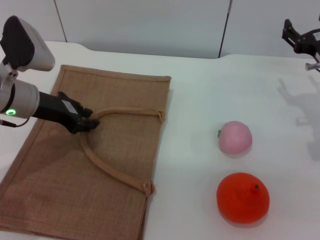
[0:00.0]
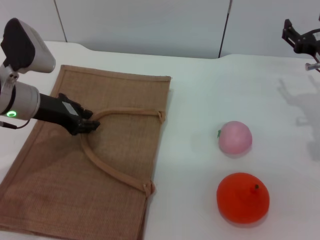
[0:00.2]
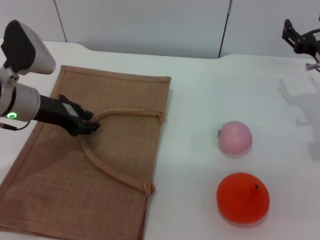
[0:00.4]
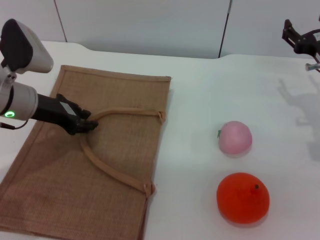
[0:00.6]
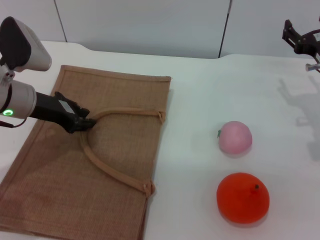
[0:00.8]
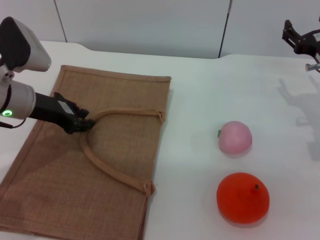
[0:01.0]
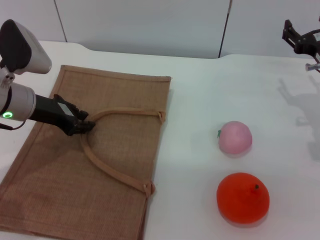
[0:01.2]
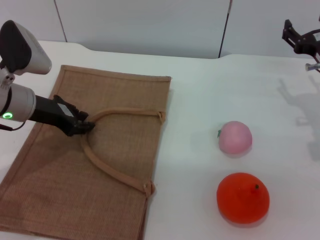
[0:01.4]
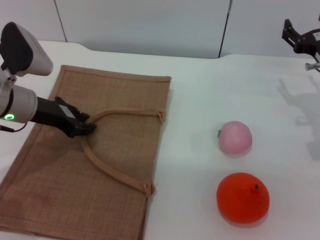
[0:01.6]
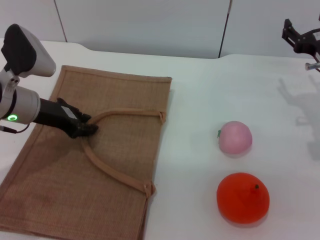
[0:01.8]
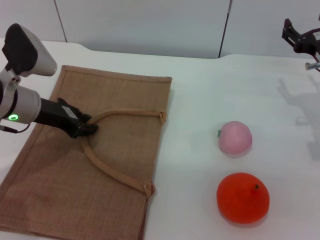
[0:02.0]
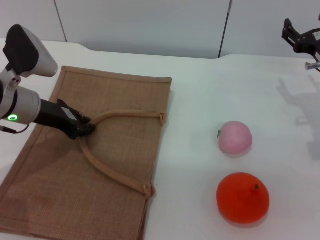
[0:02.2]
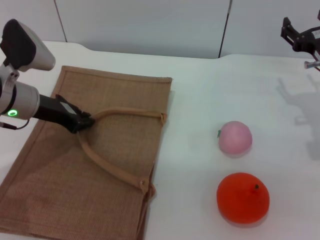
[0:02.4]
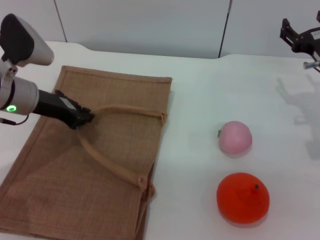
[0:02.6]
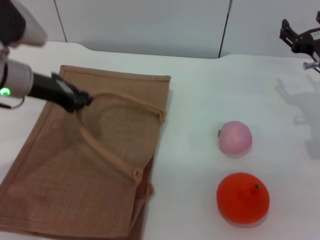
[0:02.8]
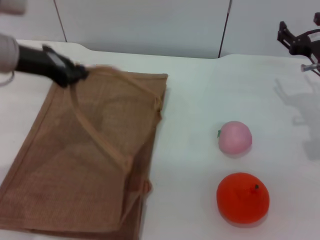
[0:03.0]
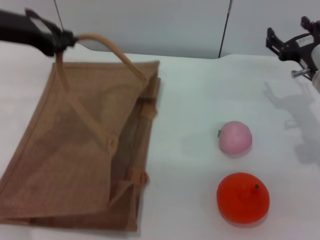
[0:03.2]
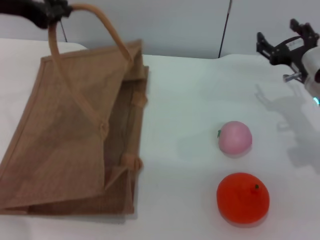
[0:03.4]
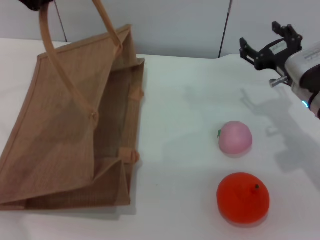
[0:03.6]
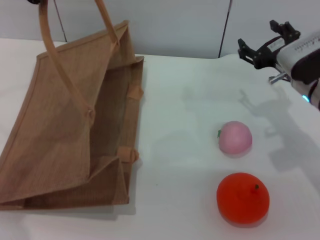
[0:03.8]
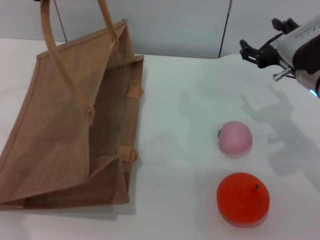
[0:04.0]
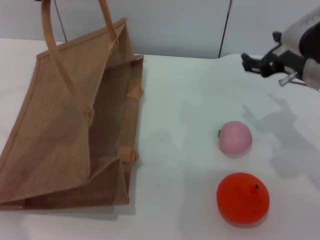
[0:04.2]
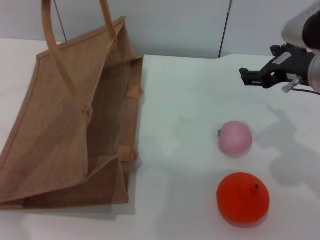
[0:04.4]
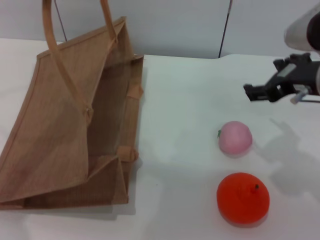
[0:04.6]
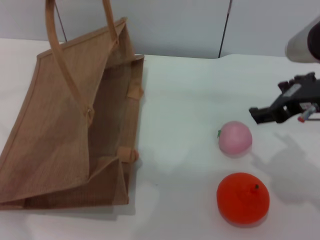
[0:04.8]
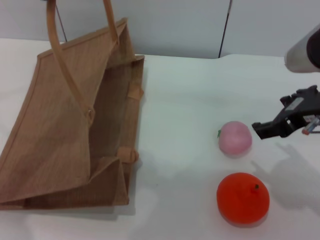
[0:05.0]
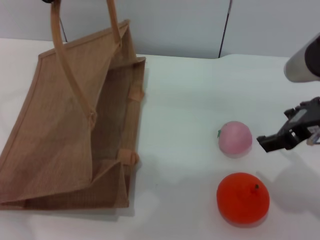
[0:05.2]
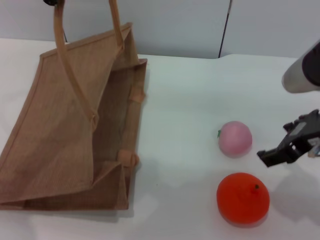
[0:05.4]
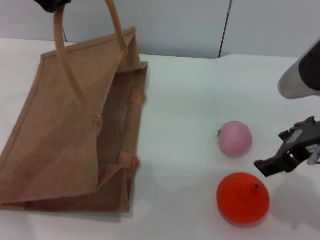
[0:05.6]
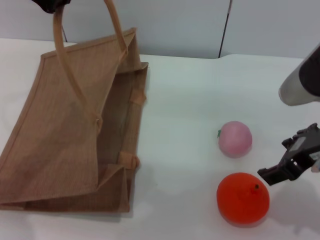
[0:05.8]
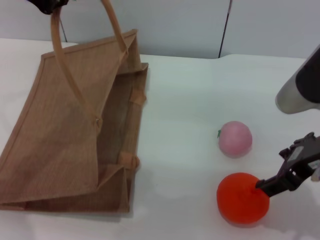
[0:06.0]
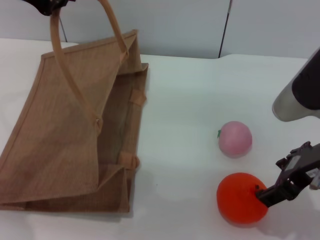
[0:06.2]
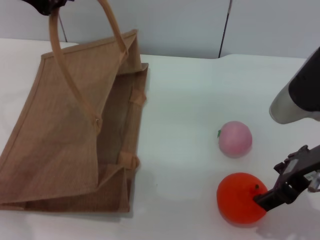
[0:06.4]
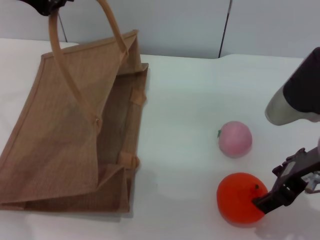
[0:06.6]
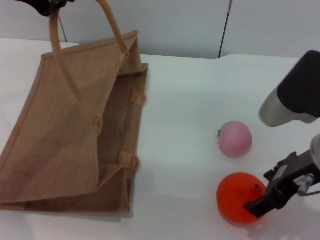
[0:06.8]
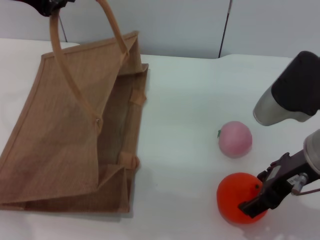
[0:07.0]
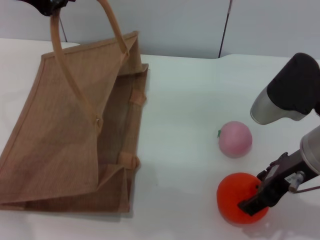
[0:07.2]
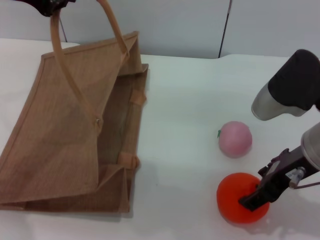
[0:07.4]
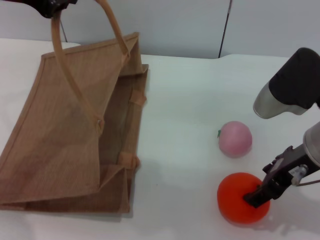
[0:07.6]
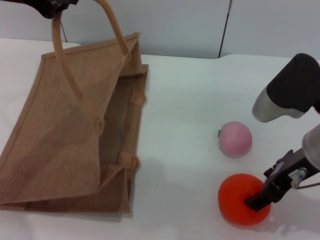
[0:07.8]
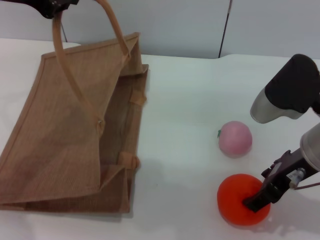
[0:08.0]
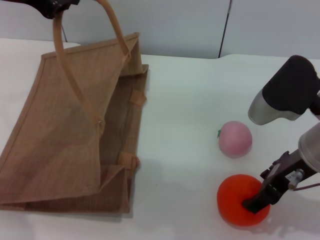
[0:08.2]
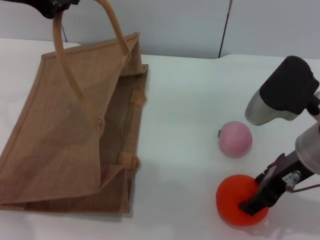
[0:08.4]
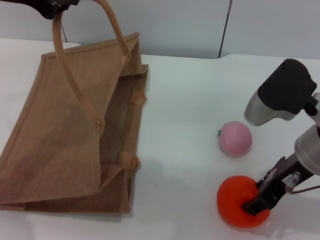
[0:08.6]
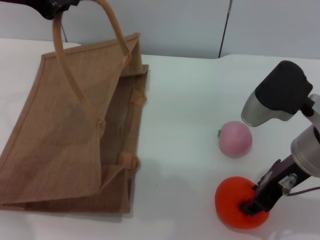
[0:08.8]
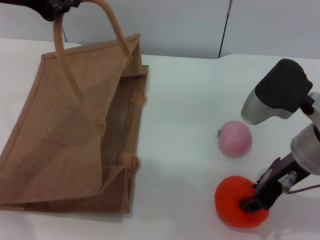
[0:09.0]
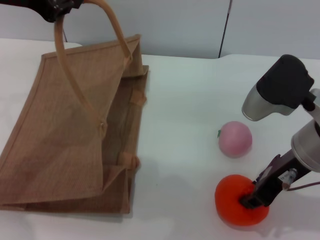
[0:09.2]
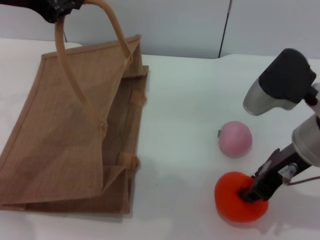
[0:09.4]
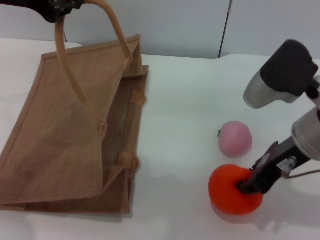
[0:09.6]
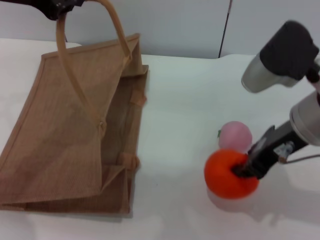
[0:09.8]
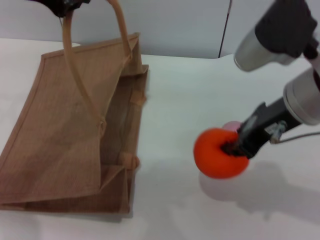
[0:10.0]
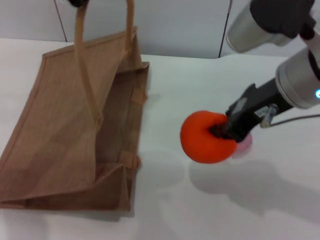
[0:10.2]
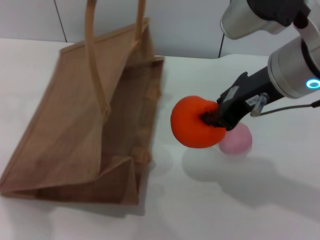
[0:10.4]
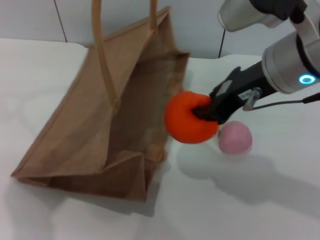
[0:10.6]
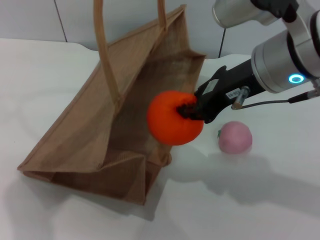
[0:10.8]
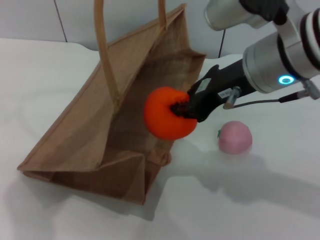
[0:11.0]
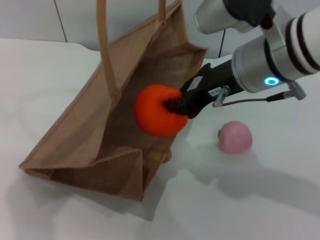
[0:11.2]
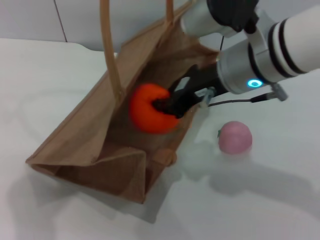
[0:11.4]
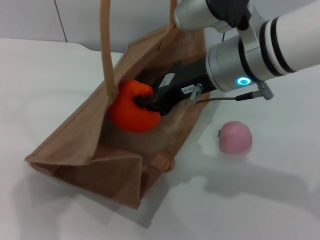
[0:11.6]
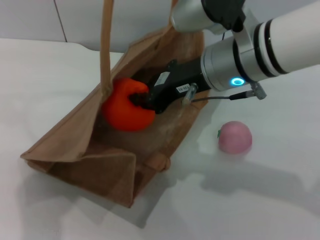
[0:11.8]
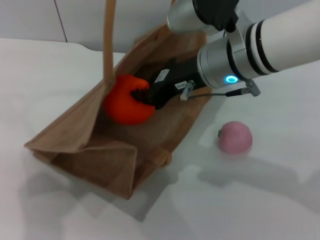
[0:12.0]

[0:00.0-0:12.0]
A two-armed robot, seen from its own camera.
Task of the whole recording: pick up the orange and peach from the table and place it in the brown handbag.
Step, 0:00.0 to 0:03.6: Lift the woven bag with the left gripper to open it.
Step, 0:03.8 to 0:09.8: Pick up the orange with the right gripper.
0:00.0 to 0:01.6: Neither gripper changes place.
0:01.6 to 0:03.0: The left gripper goes approximately 10 cm upward.
0:03.0 to 0:04.4: The right gripper goes approximately 15 cm upward, to the left and backward; the left gripper goes approximately 15 cm upward.
0:04.4 to 0:06.0: The right gripper shifts approximately 5 cm backward.
0:06.0 to 0:07.6: The grippers stay close to where they were, moving slightly.
0:07.6 to 0:09.0: The right gripper closes its fingers.
0:09.0 to 0:10.4: The left gripper shifts by some 5 cm, while the right gripper moves upward, some 10 cm, and closes up.
0:10.4 to 0:12.0: The right gripper travels to the left by some 5 cm.

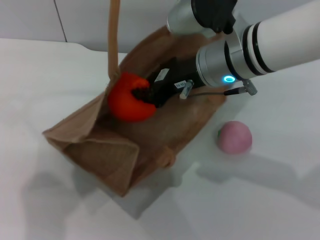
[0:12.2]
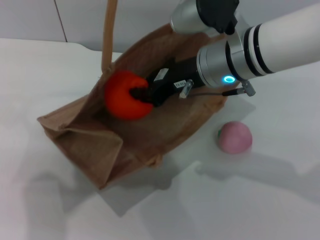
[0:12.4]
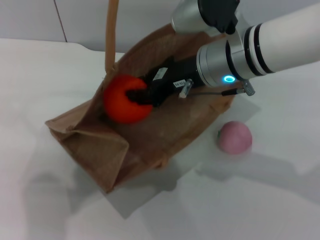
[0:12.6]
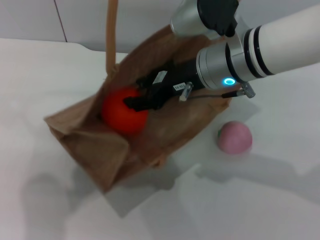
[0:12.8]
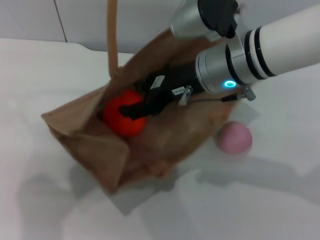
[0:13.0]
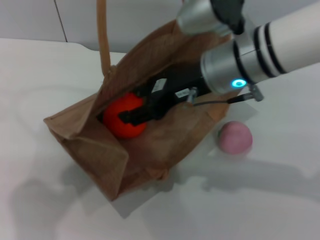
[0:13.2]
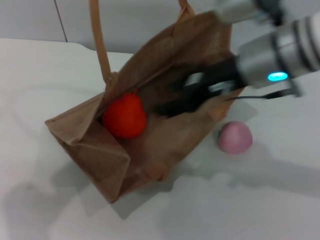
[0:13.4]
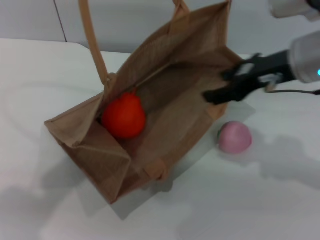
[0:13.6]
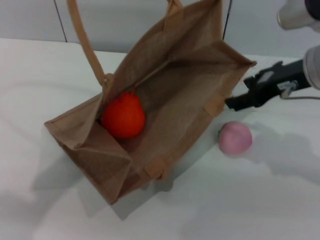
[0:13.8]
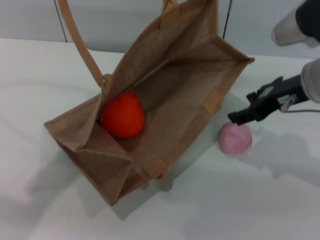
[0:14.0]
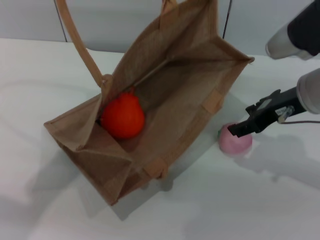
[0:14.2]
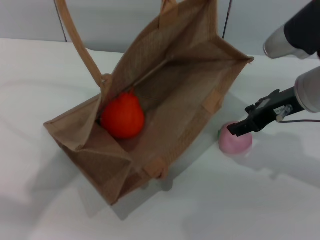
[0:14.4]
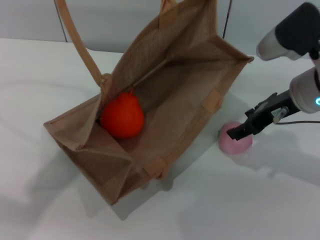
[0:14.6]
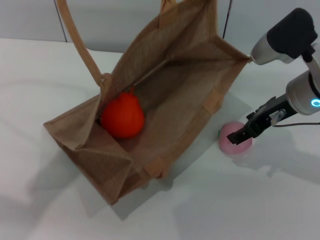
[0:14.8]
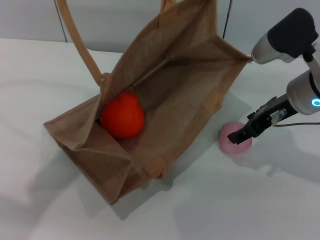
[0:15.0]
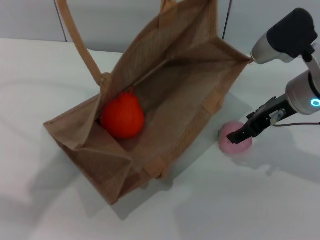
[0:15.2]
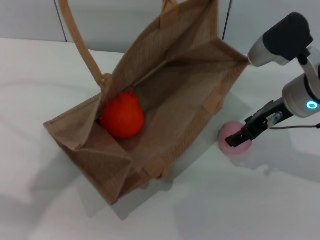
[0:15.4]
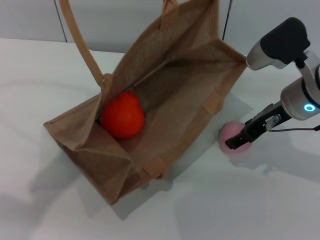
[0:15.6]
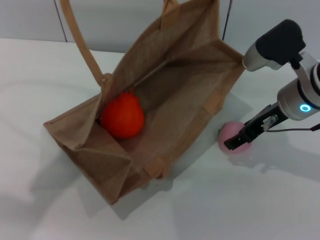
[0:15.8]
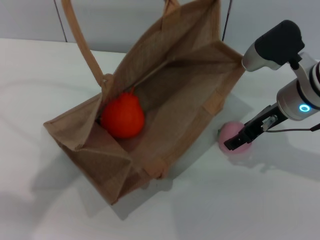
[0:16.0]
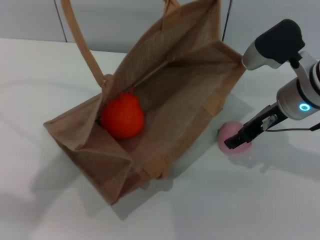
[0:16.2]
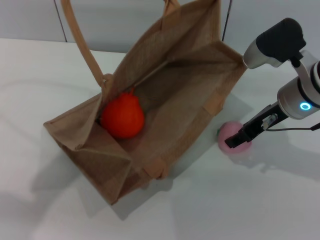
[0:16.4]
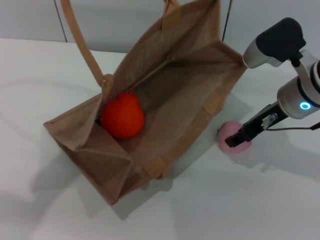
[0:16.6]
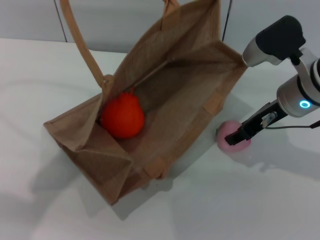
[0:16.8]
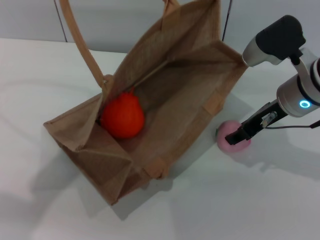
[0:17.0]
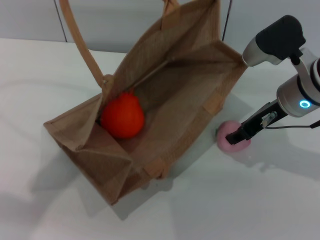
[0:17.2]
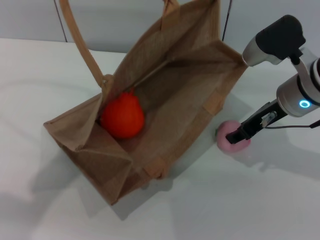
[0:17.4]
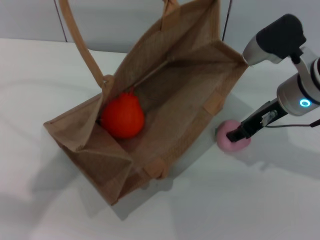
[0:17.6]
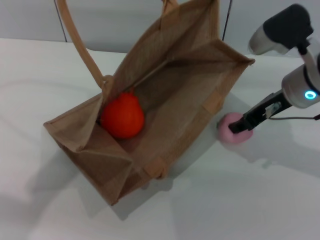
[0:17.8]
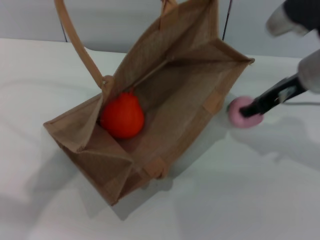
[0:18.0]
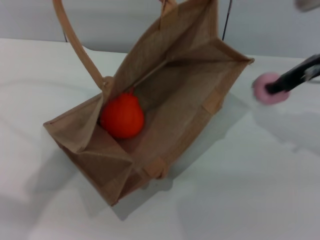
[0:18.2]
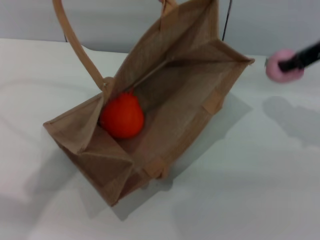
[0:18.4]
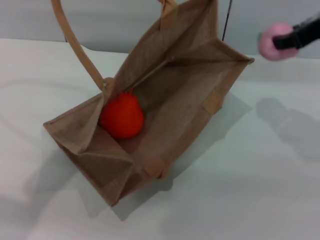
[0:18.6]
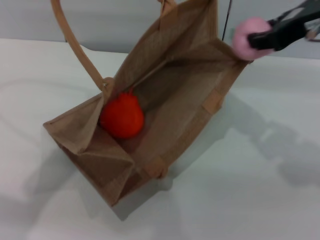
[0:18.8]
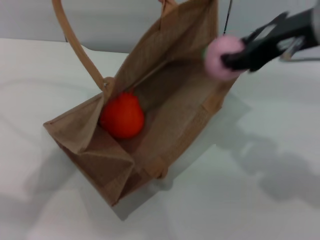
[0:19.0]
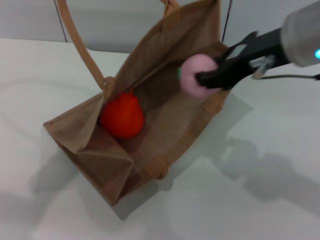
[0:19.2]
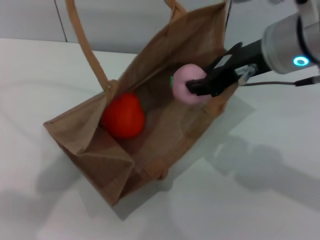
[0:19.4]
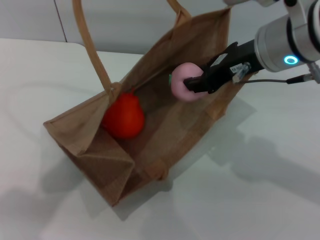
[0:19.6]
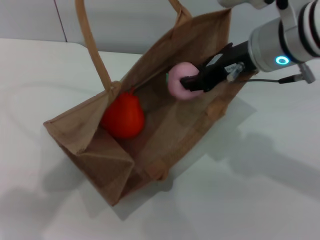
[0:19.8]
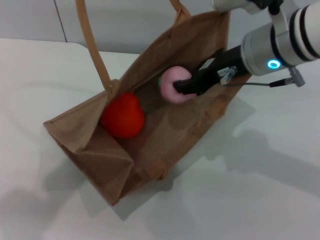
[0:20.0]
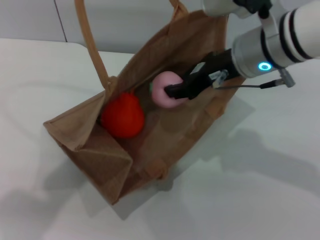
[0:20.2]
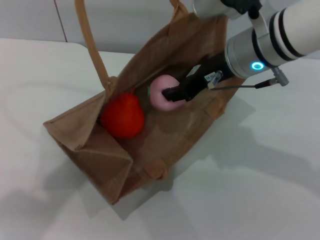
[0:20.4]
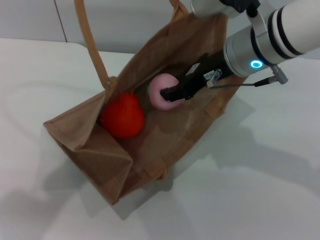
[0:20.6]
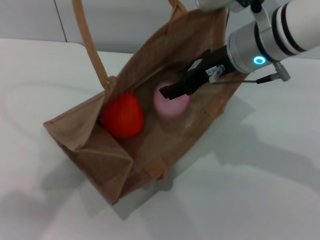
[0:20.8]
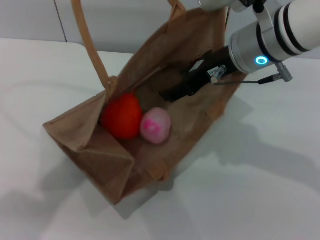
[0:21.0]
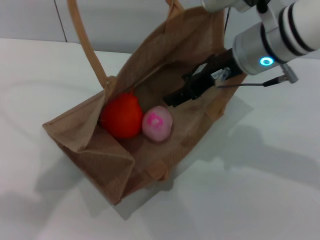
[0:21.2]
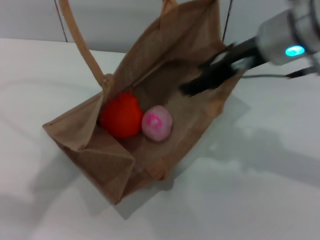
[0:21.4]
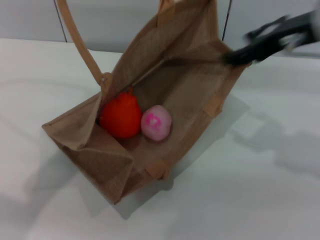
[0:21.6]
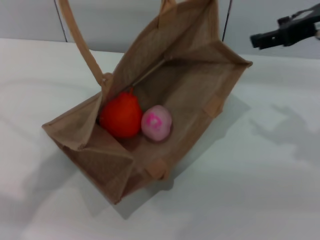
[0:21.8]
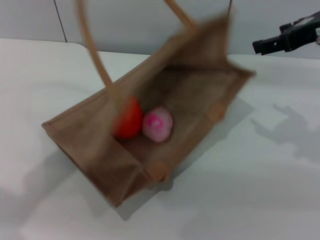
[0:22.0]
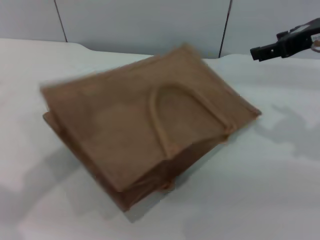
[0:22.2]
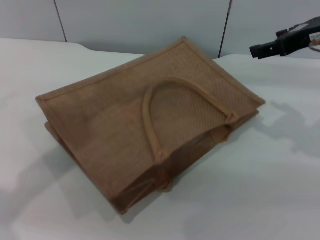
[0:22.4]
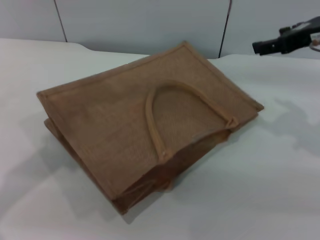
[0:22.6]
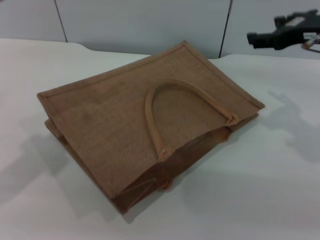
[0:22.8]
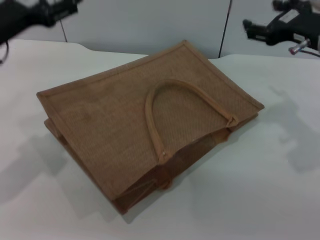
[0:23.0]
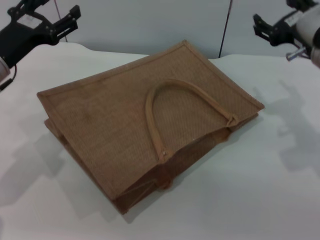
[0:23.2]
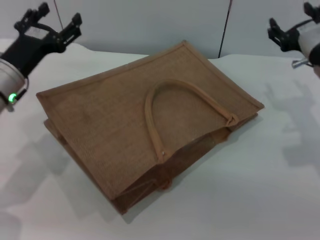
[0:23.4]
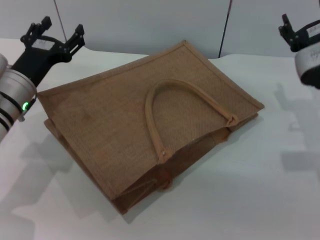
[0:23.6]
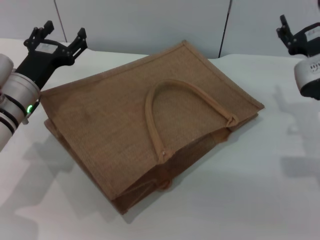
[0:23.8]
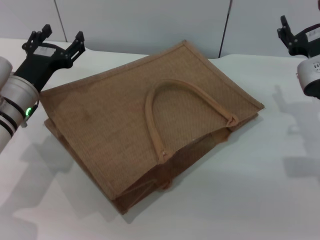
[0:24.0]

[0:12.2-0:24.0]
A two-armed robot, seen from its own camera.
Task of the whole recording: pick up the orange and peach from the table and place it in the brown handbag.
Step, 0:13.4 to 0:18.0: Pick up the peach with the right gripper.
Step, 0:18.2 to 0:21.2: Place the peach into the woven bag with the right gripper.
Step, 0:21.4 to 0:22.4: Lower the woven bag with the left gripper to close it.
0:12.2 to 0:13.6: The right gripper travels to the right by about 10 cm, and opens.
0:13.6 to 0:15.2: The right gripper shifts roughly 5 cm downward.
0:15.2 to 0:16.6: The grippers make only small movements.
0:16.6 to 0:18.2: The right gripper goes roughly 5 cm upward, and closes up.
0:18.2 to 0:19.6: The right gripper moves to the left and backward, some 10 cm.
0:19.6 to 0:21.0: The right gripper shifts by approximately 5 cm, and opens.
0:21.0 to 0:22.6: The left gripper shifts about 5 cm downward, and opens. The right gripper moves to the right, some 15 cm.
0:22.6 to 0:24.0: The grippers both shift downward by approximately 15 cm.
